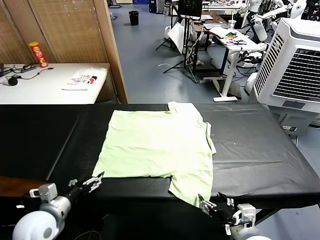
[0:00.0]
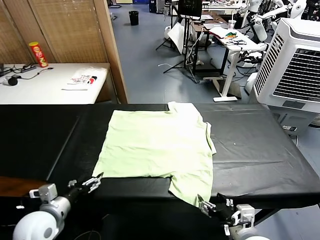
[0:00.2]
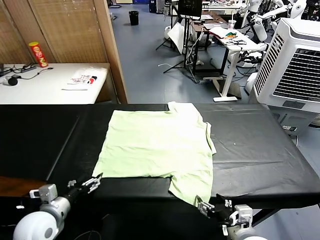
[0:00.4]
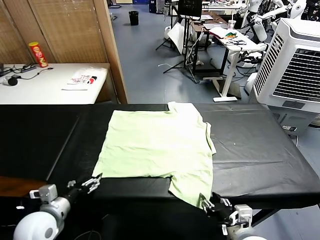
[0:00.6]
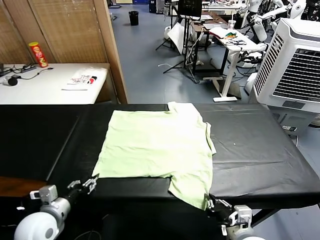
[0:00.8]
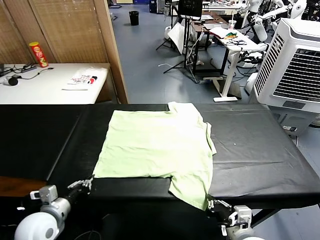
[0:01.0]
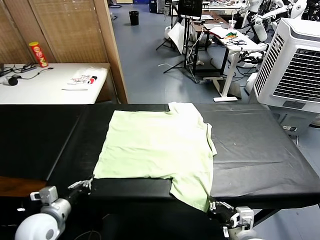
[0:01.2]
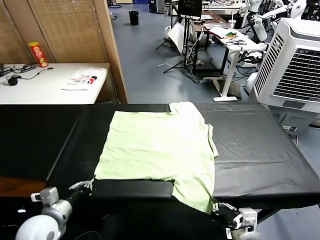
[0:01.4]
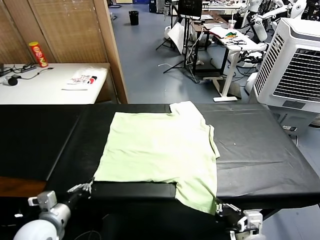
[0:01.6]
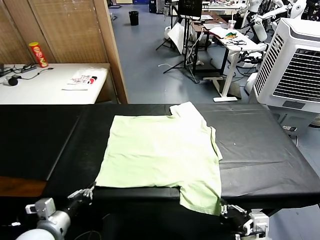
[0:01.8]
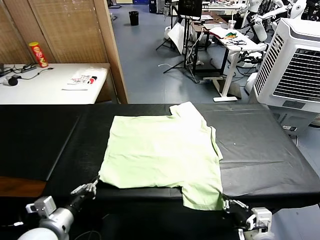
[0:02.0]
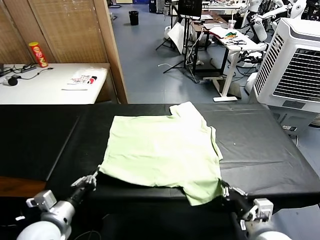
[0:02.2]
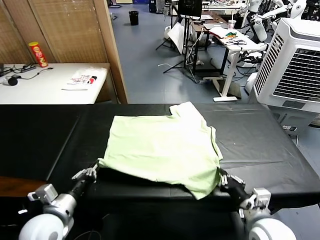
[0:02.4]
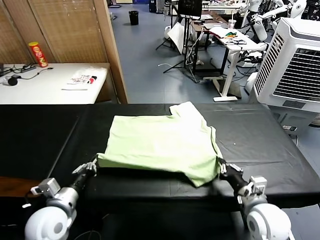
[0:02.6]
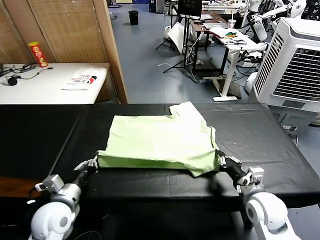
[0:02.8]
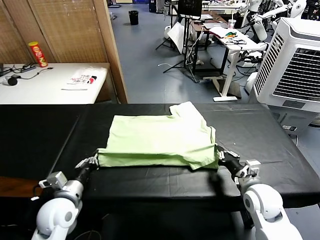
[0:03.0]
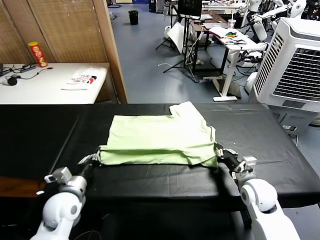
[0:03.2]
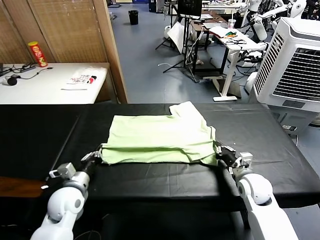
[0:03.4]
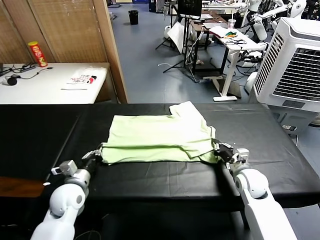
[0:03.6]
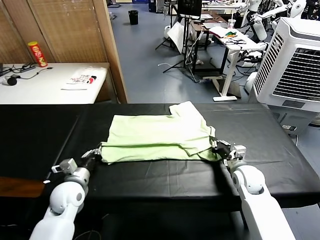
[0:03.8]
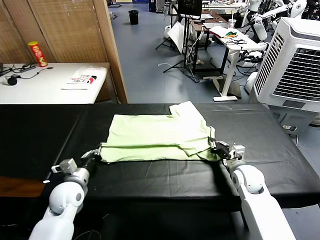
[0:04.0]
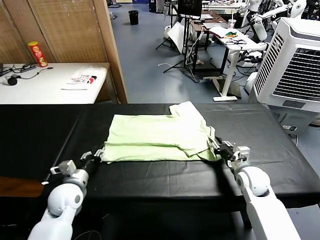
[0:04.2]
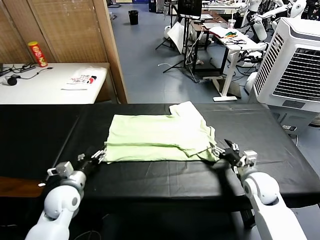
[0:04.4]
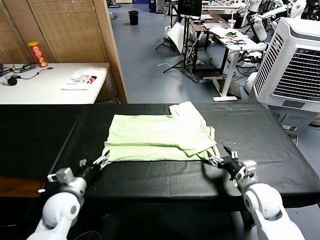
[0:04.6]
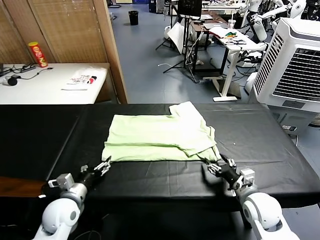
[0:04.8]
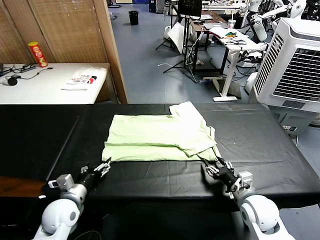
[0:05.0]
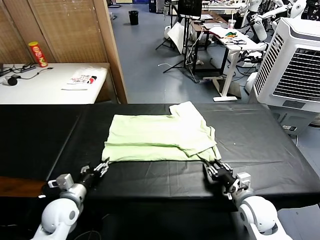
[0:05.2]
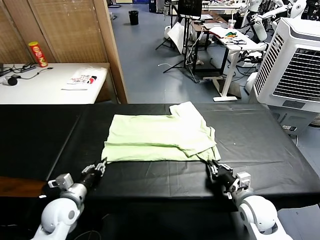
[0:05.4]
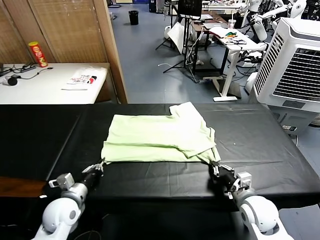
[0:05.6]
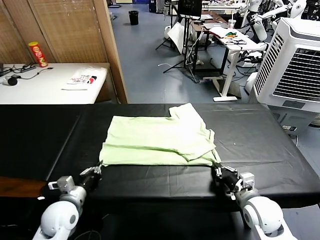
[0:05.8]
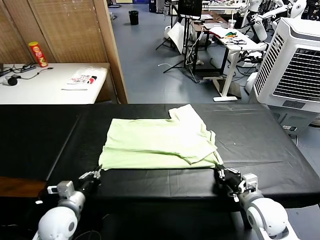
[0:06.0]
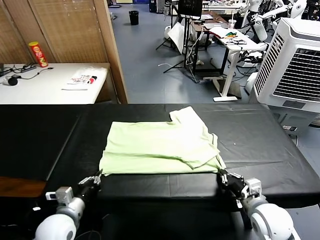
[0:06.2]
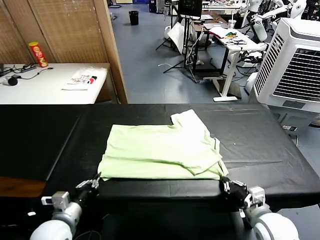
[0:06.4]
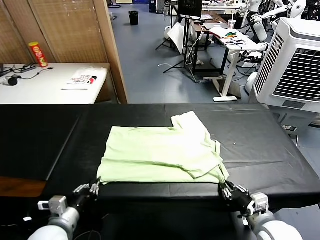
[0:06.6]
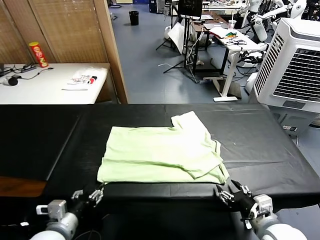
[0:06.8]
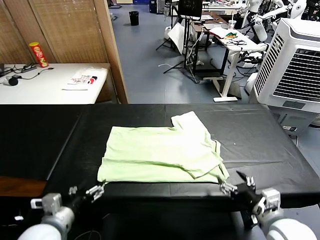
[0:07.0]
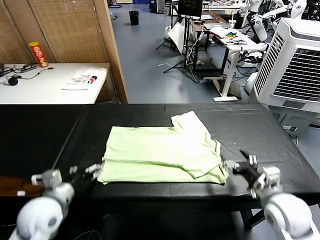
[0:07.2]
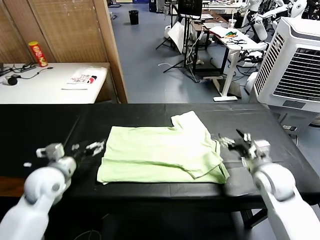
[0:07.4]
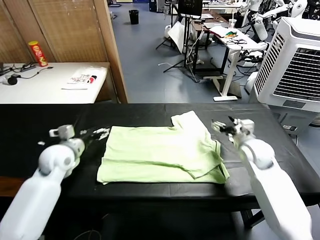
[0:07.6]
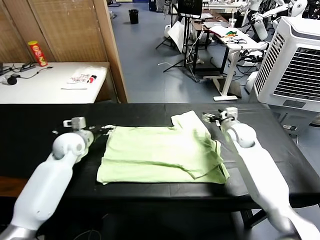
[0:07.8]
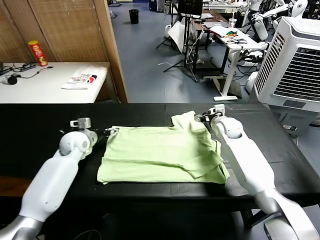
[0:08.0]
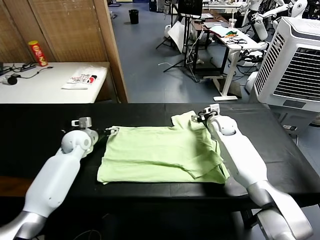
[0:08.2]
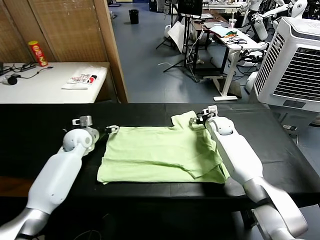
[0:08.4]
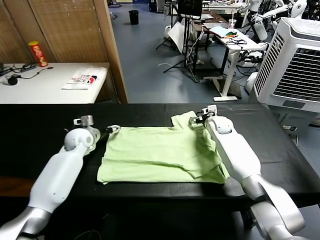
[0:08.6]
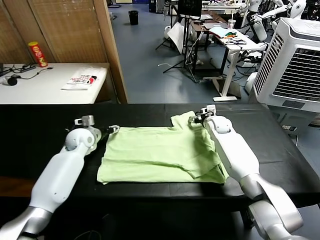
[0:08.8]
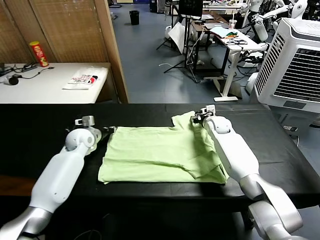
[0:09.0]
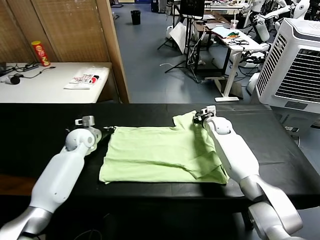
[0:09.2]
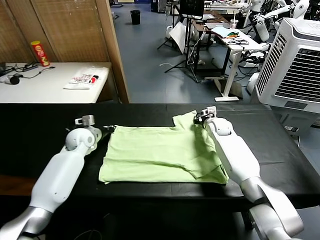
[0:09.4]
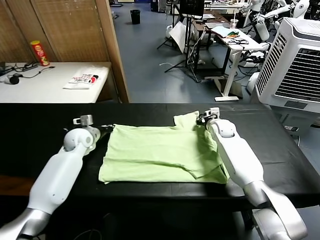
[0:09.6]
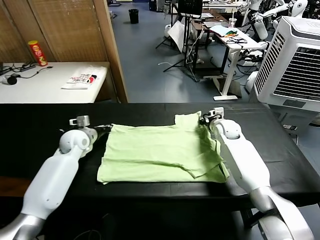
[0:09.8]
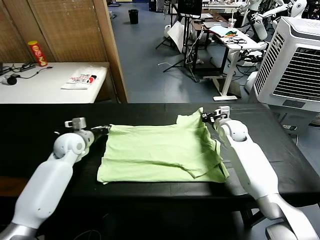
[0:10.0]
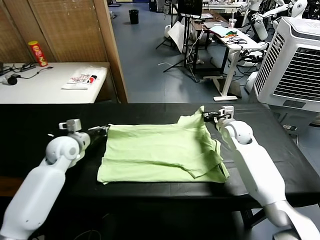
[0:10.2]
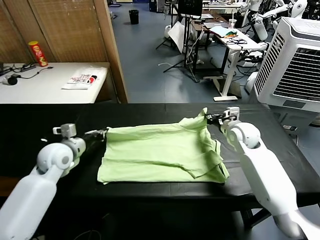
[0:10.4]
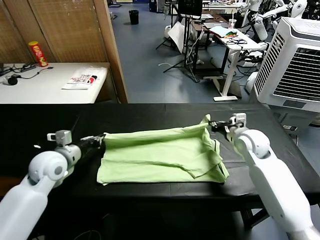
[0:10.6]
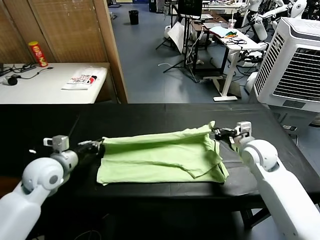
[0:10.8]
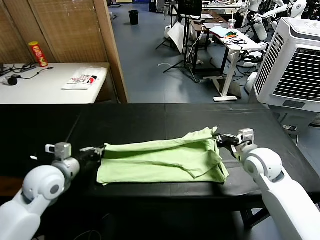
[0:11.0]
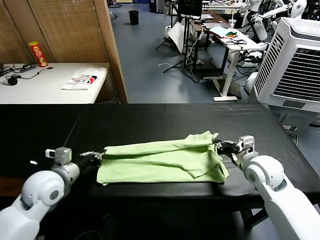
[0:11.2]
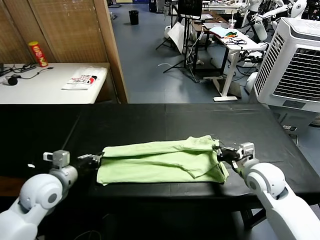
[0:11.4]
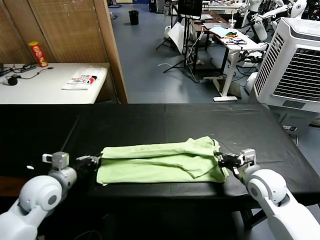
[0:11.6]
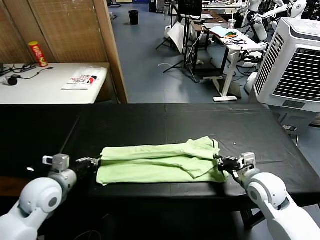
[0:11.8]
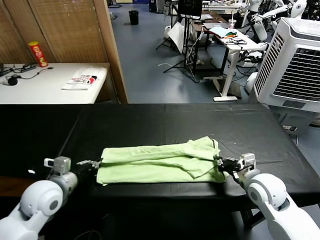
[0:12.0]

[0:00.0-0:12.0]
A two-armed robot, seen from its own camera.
Task of the whole recording: fold and organize the clothes.
Step, 0.0 to 1.2 s: use both grippers simultaneously to clamp the lower edge of the clothing fabric.
Step, 1.4 to 4.4 s: use both grippers to drag the lower edge of the fabric forward and fold it over the upper edge.
Step, 4.6 to 6.8 s: Drag the clothes downward with both gripper.
Step, 7.0 to 9.2 s: use both grippers simultaneously to clamp the upper edge of the clothing fabric.
1.6 to 3.0 s: The right gripper is displaced forward by about 20 cm; the left gripper goes roughly 5 cm forward.
3.0 to 4.4 s: The left gripper ends up approximately 5 cm from where it was, and opens up, while the right gripper travels forward and back again, approximately 5 cm each way, and opens its fingers.
4.4 to 6.0 s: Both grippers travel together backward, some 5 cm. The right gripper closes; the left gripper closes up.
6.0 to 7.6 s: The left gripper heads forward and upward, covering roughly 20 cm, and opens. Meanwhile the right gripper heads forward, covering approximately 25 cm, and opens.
7.6 to 9.0 s: The right gripper shifts some 15 cm forward, downward and to the left, and closes its fingers, while the left gripper is displaced forward by some 10 cm, and closes.
9.0 to 10.4 s: The left gripper shifts some 10 cm backward and upward. Meanwhile the right gripper shifts roughly 15 cm backward, upward and to the right.
10.4 to 12.0 s: Both grippers travel together backward, about 15 cm.

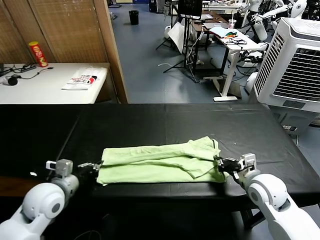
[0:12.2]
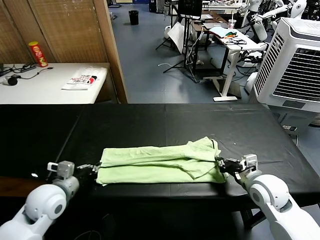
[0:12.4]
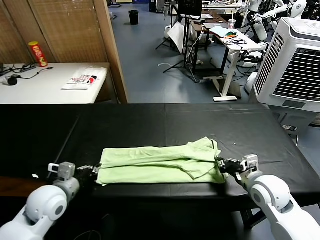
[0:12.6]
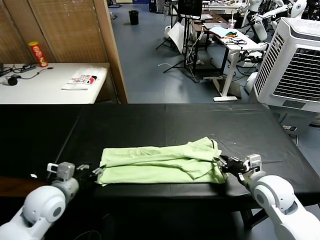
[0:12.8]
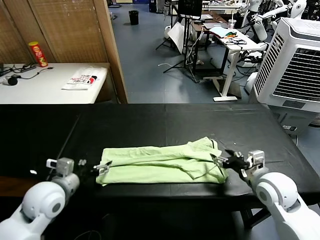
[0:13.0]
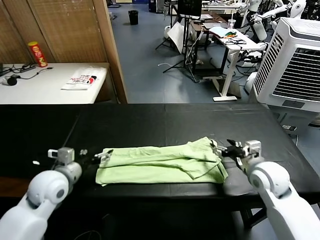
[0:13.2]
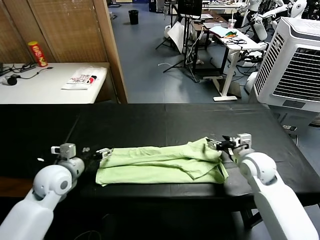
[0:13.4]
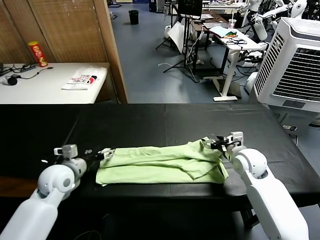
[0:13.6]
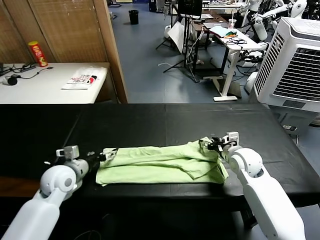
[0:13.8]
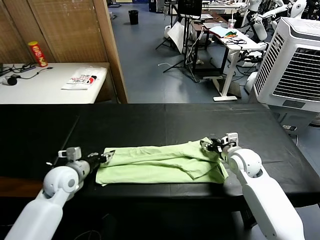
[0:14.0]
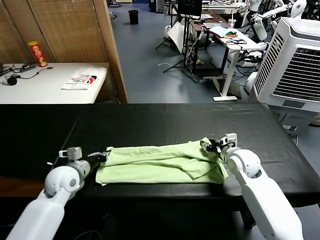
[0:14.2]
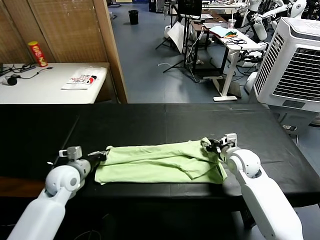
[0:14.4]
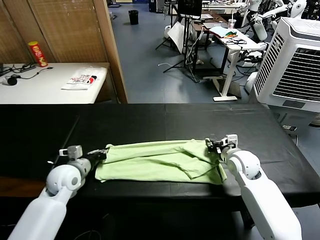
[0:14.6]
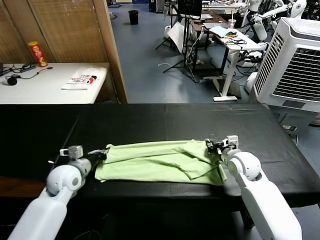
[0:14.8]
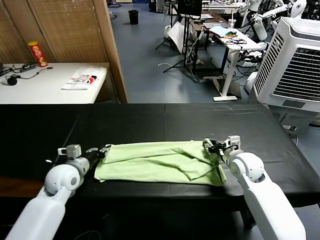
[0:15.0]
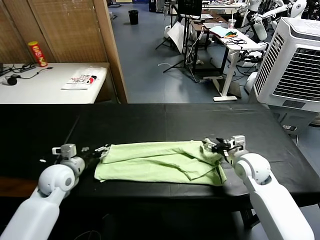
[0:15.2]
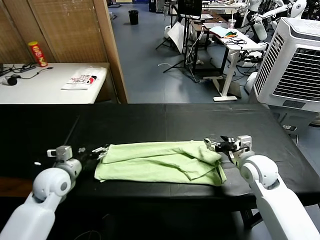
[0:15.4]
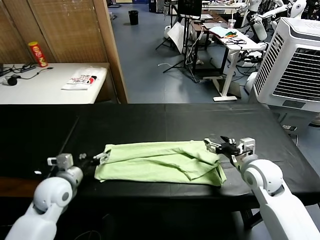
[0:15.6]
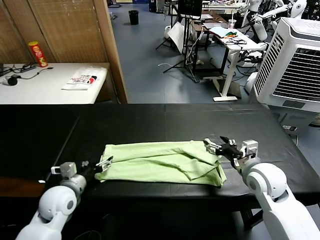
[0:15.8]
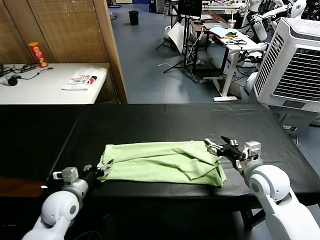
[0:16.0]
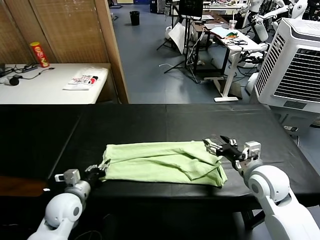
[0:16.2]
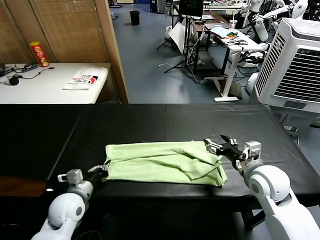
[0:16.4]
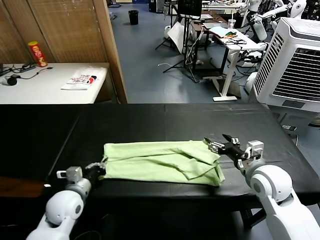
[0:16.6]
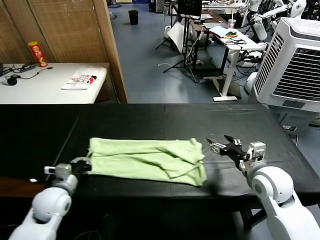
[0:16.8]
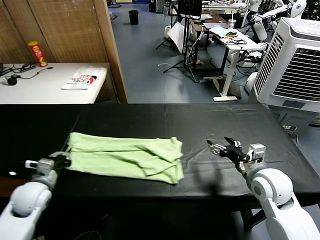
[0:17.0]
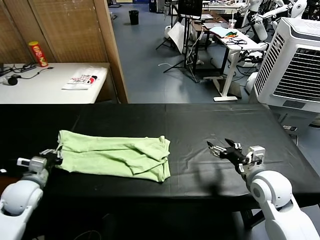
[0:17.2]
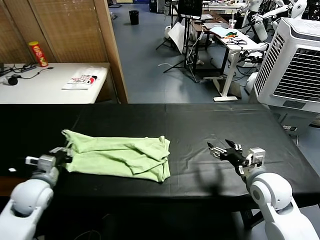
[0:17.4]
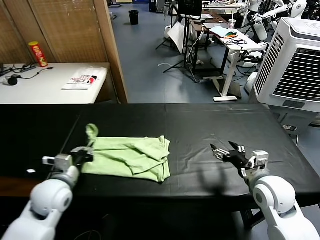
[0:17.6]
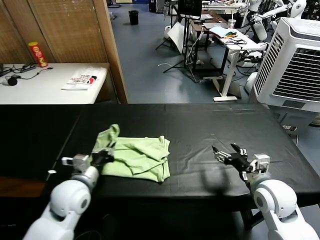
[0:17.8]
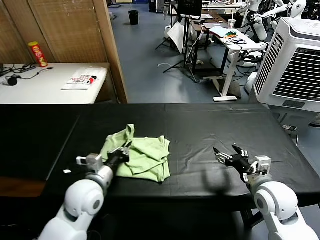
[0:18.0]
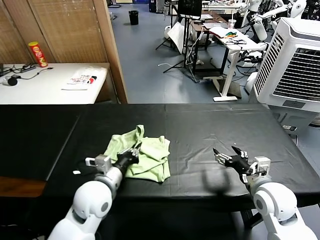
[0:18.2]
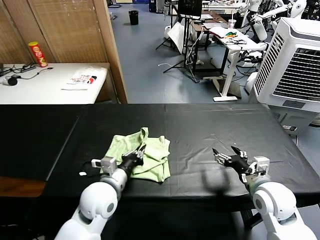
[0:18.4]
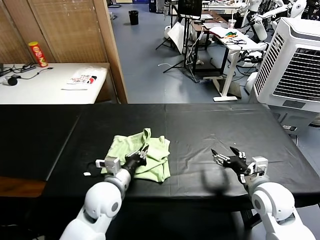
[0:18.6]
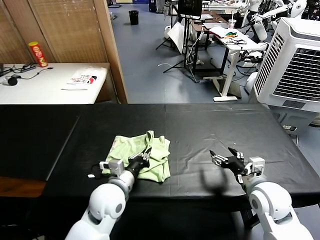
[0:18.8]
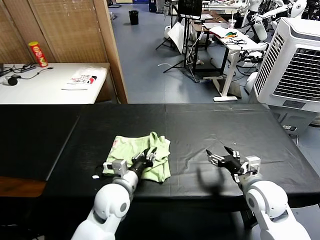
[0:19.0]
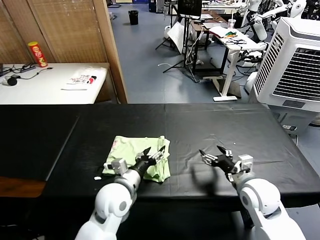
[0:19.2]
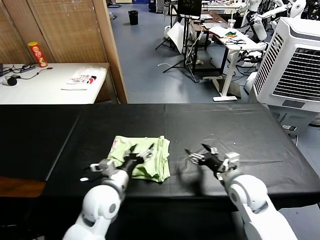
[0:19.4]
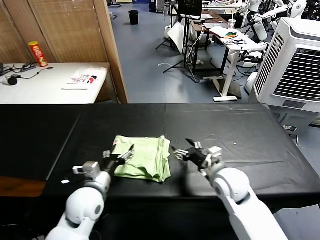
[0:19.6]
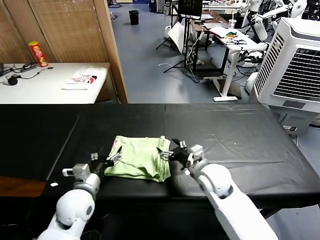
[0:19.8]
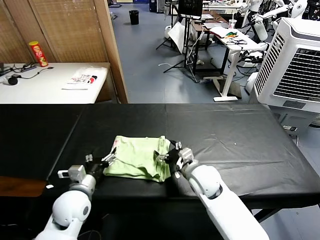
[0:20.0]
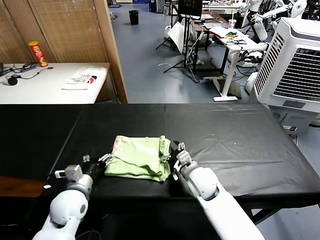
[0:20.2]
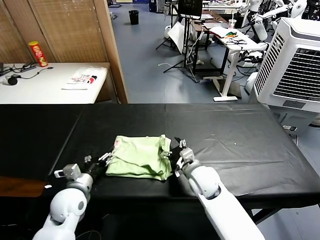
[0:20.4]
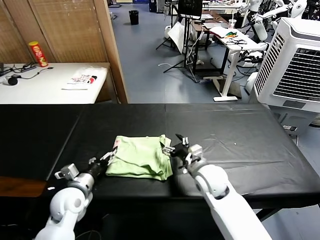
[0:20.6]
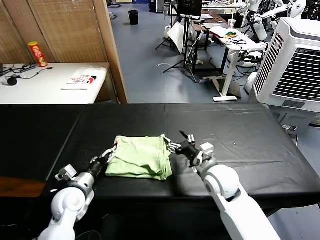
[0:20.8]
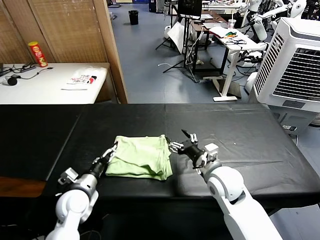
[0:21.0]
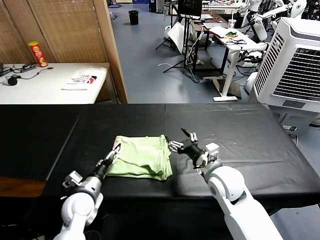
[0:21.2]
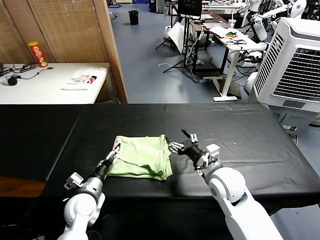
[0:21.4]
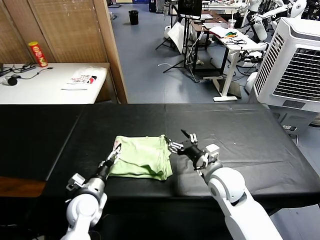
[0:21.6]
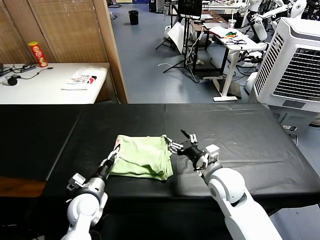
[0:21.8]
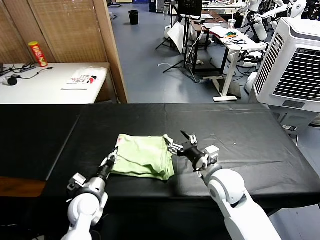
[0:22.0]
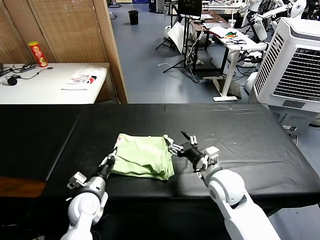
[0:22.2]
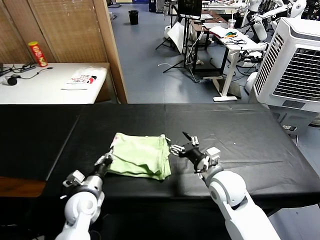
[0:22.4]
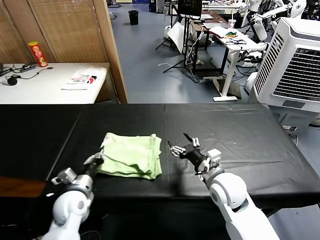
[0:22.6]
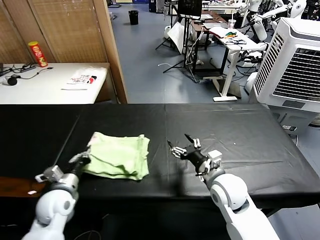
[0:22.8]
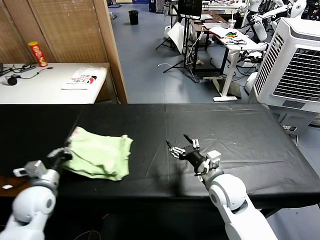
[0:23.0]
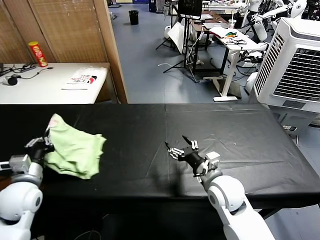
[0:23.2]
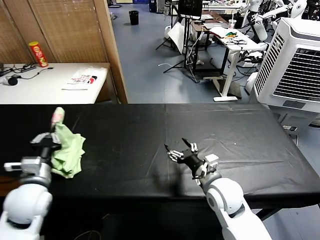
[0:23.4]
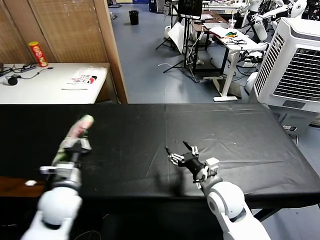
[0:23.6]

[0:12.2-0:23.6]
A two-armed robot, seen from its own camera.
Task of the whole recording: fold and organize the clothes.
Step, 13.0 to 16.2 s: use the left gripper to clamp the left edge of the fabric.
Step, 16.4 to 19.0 s: use the left gripper to drag the left edge of the fabric to the left and folds it over the right edge.
12.2 to 13.6 s: The right gripper shifts approximately 10 cm forward, and opens. The left gripper moves forward, roughly 5 cm, and opens its fingers.
13.6 to 15.0 s: The left gripper closes, while the right gripper closes up.
15.0 to 16.4 s: The right gripper goes approximately 10 cm backward and upward, and opens its fingers. Meanwhile the left gripper is displaced backward by roughly 10 cm, and opens, then closes once more.
16.4 to 17.8 s: The left gripper goes some 5 cm upward, and reaches some 15 cm to the left, then returns.
17.8 to 19.4 s: The right gripper goes some 5 cm to the left, while the left gripper shifts roughly 10 cm to the right, and opens.
19.4 to 20.8 s: The right gripper travels to the left by roughly 5 cm, while the left gripper shifts about 15 cm to the left and downward.
20.8 to 22.2 s: The left gripper ends up some 5 cm from where it was, and closes up.
22.2 to 23.6 s: The left gripper moves upward, some 10 cm.
